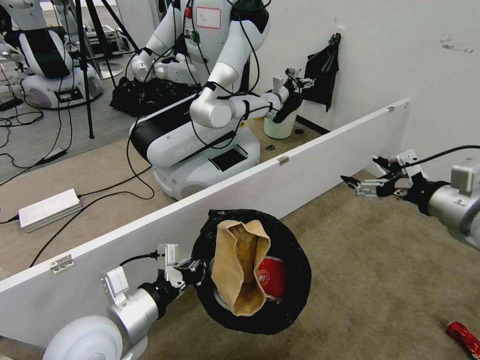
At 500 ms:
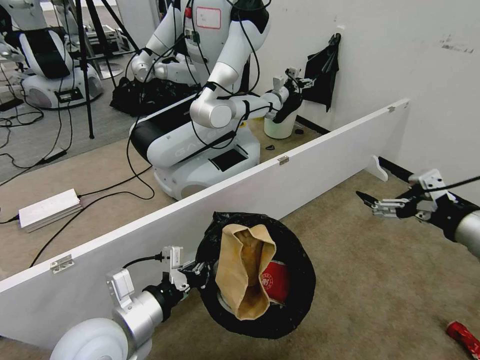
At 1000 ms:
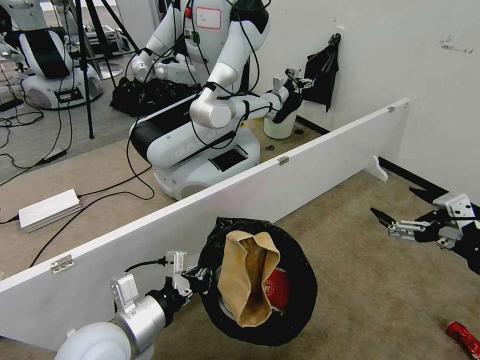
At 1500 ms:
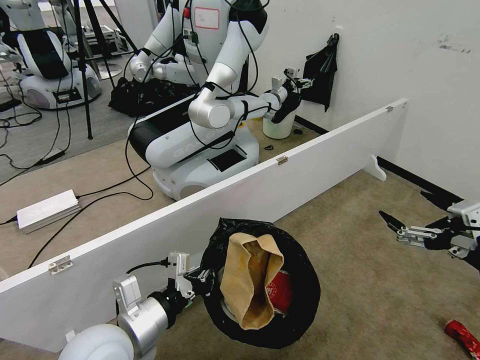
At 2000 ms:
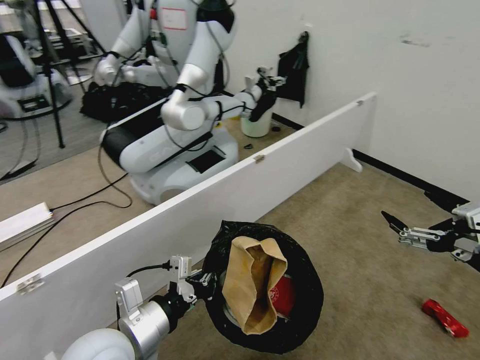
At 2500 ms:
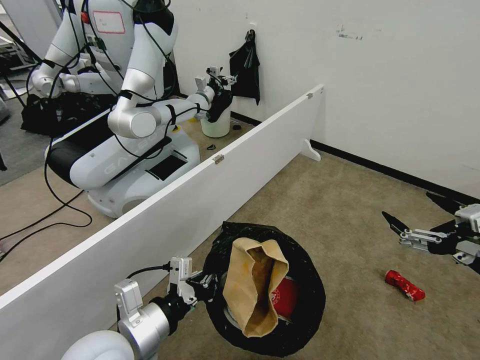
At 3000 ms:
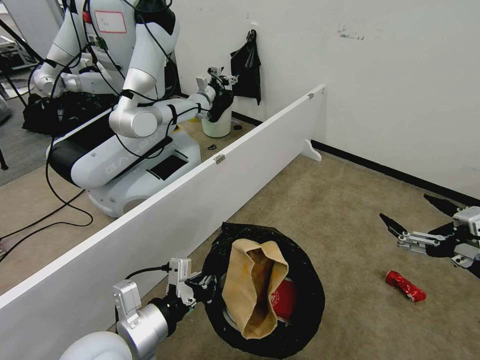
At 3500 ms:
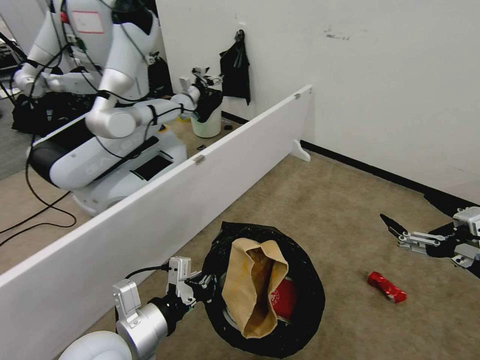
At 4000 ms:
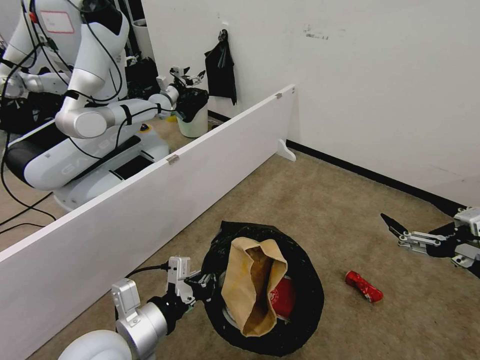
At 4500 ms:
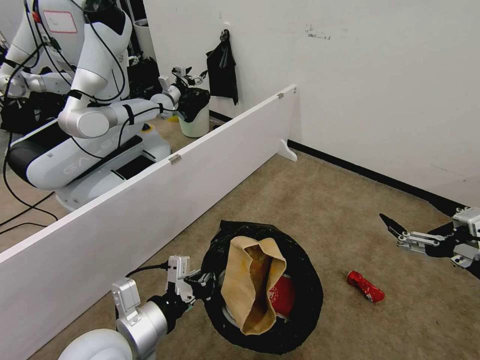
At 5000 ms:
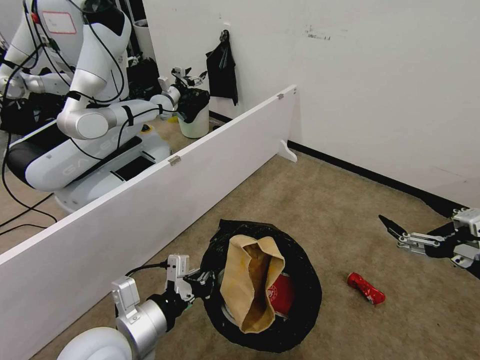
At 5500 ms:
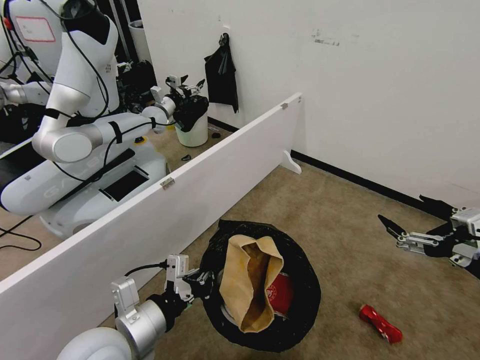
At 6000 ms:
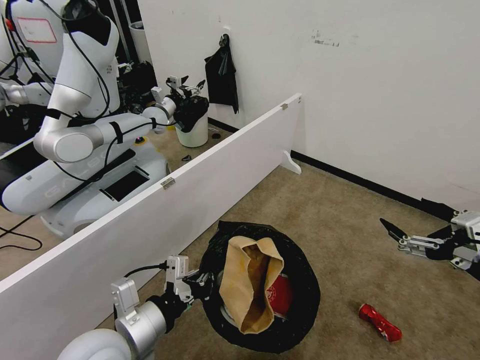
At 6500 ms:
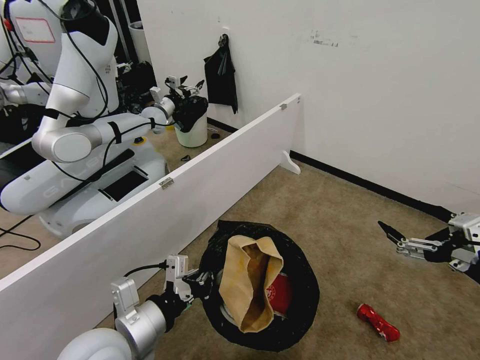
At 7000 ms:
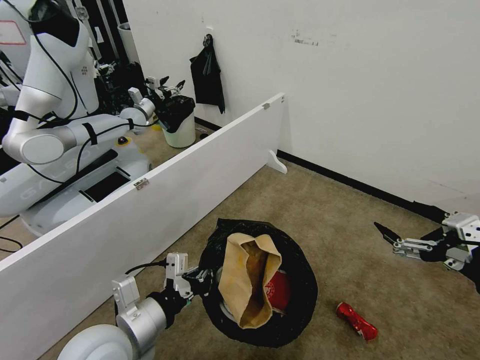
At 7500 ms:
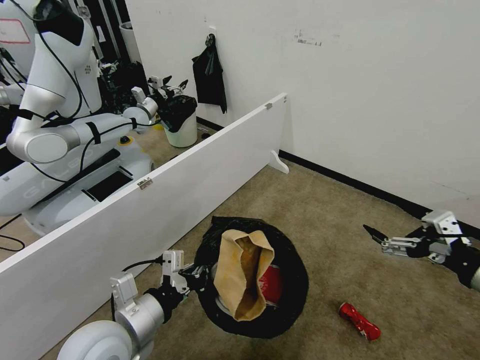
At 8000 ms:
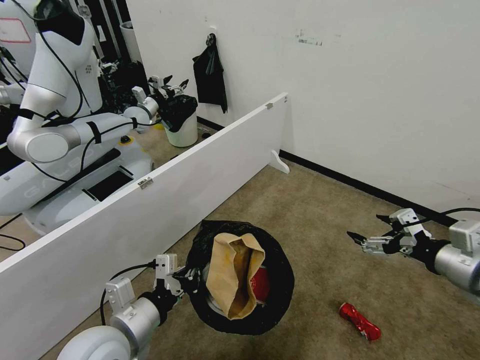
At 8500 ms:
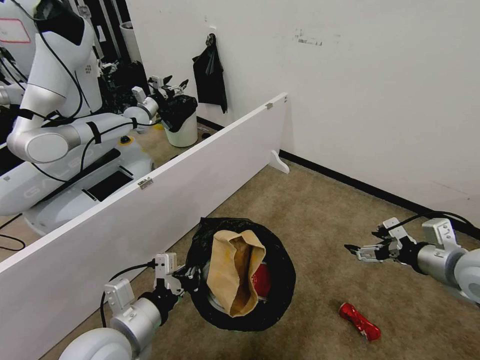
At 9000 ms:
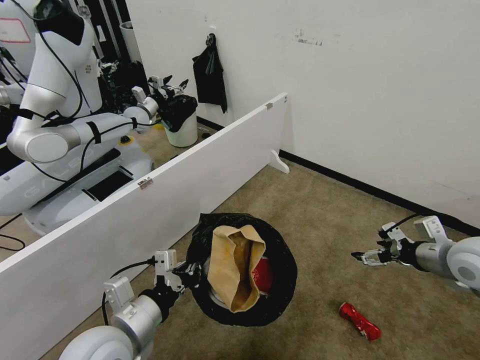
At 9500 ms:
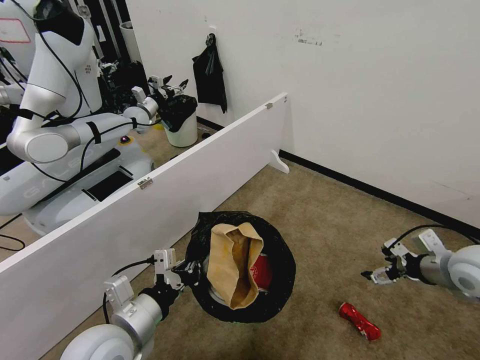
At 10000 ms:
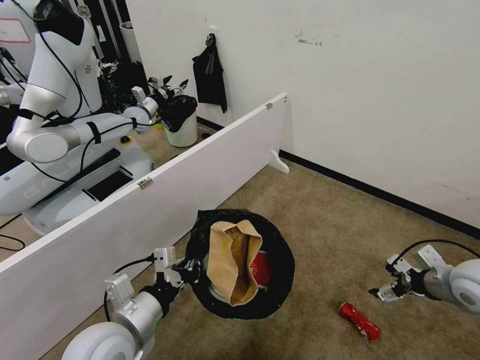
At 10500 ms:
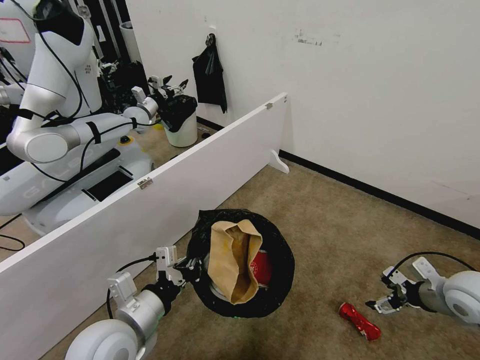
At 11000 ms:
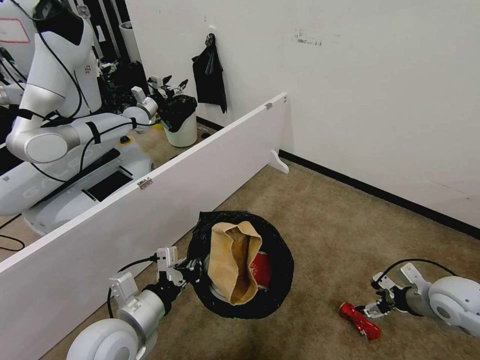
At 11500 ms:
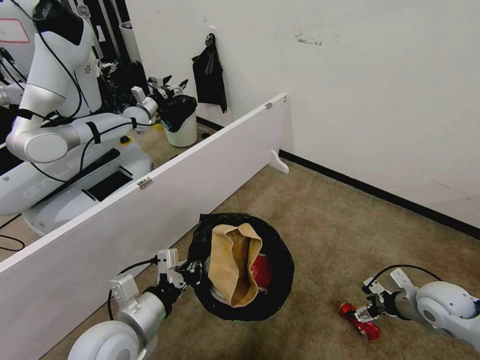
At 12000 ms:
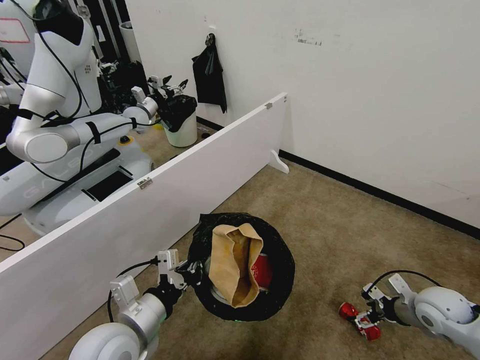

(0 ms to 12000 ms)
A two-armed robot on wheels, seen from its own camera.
Task of the whole recording: Pick up the trash bin, then pick up the garbage from the floor and place it into the trash bin.
0 ms - 2000 ms: The right gripper heads backward, covering some 15 cm.
6000 ms - 8000 ms: The right gripper is displaced forward by about 10 cm.
8000 ms - 10000 ms: The right gripper goes roughly 10 cm downward, to the right and forward.
10000 ms - 12000 ms: The right gripper heads downward, covering approximately 10 cm.

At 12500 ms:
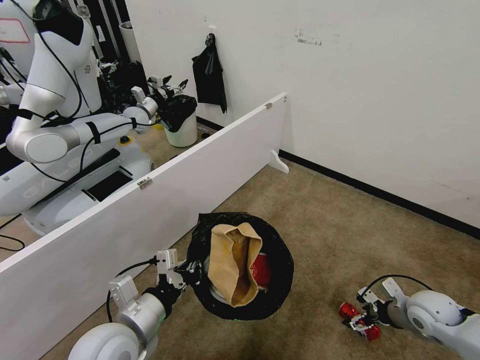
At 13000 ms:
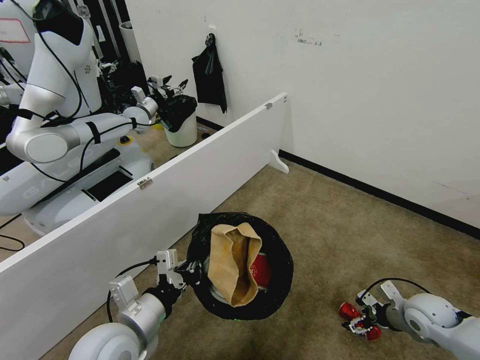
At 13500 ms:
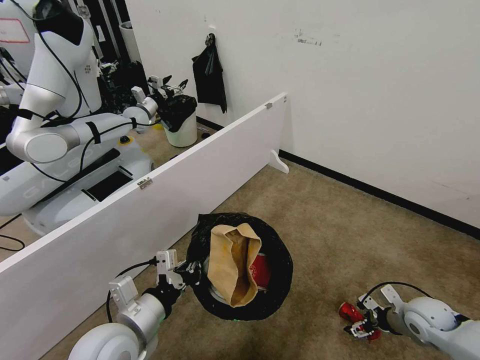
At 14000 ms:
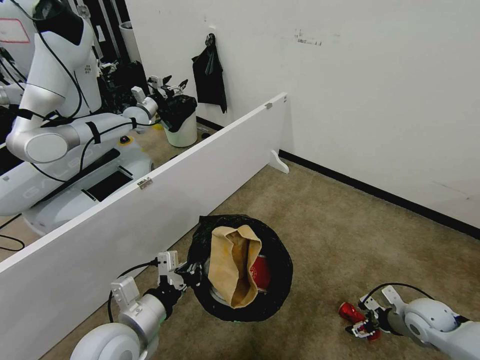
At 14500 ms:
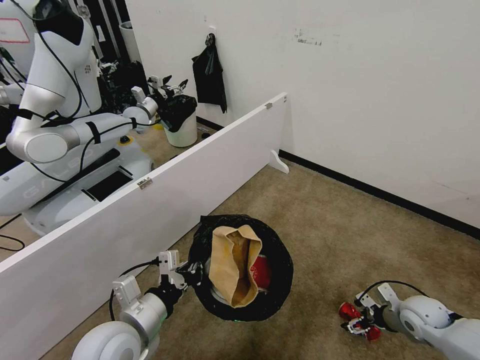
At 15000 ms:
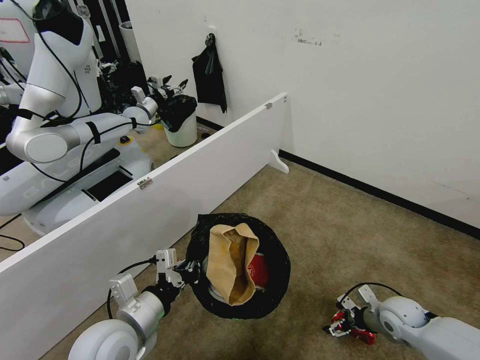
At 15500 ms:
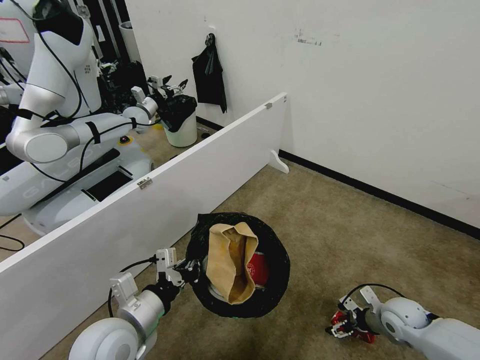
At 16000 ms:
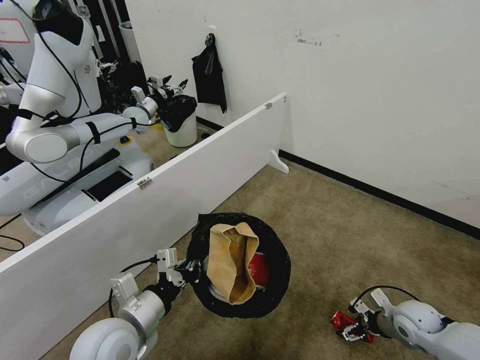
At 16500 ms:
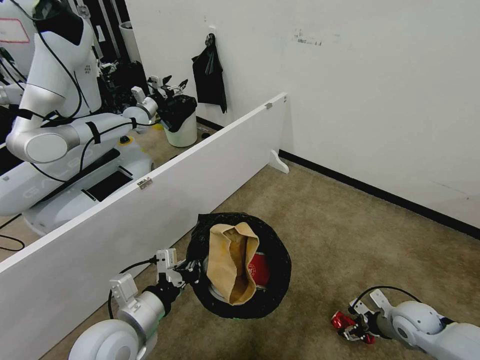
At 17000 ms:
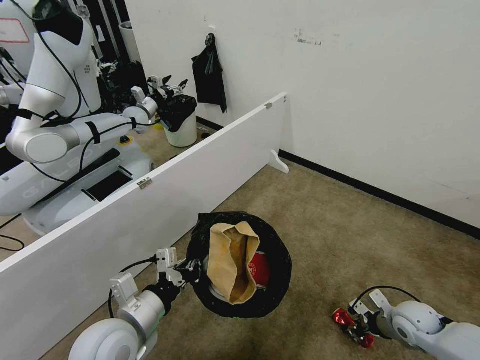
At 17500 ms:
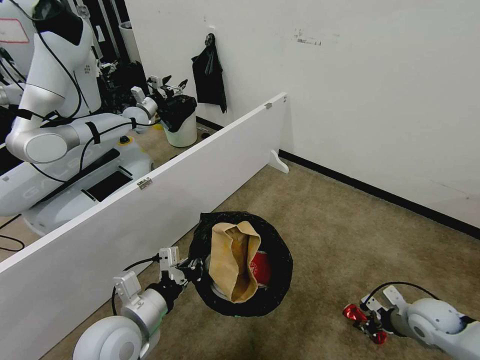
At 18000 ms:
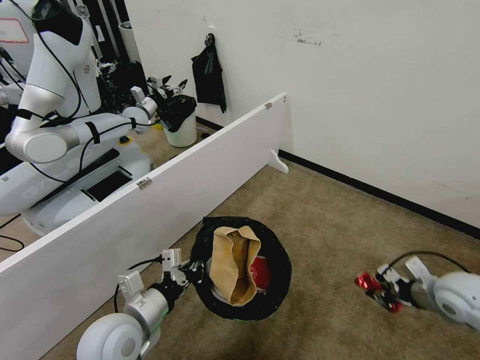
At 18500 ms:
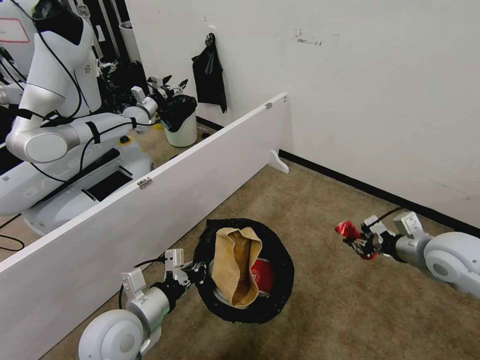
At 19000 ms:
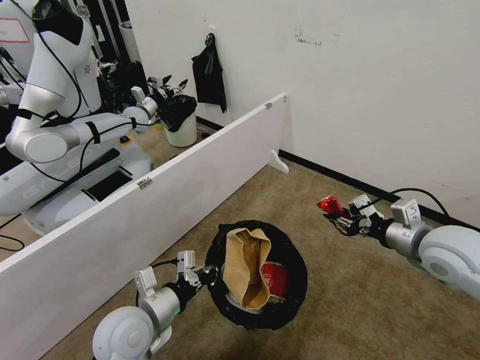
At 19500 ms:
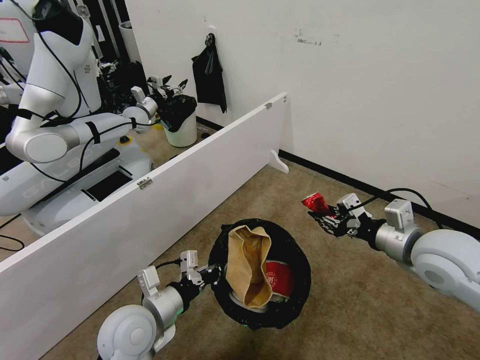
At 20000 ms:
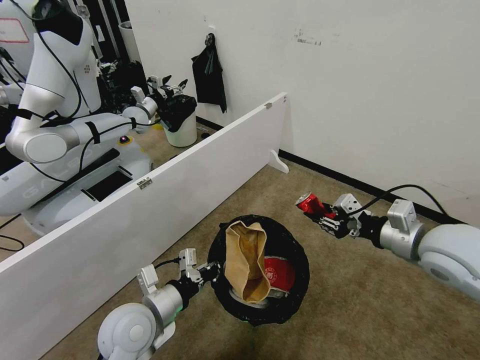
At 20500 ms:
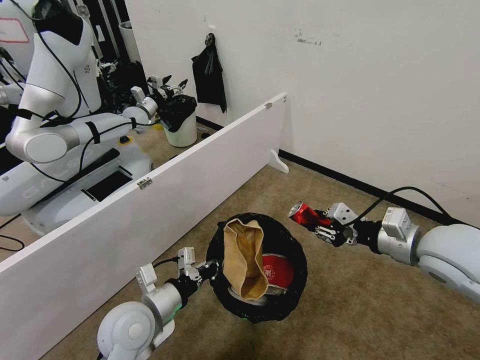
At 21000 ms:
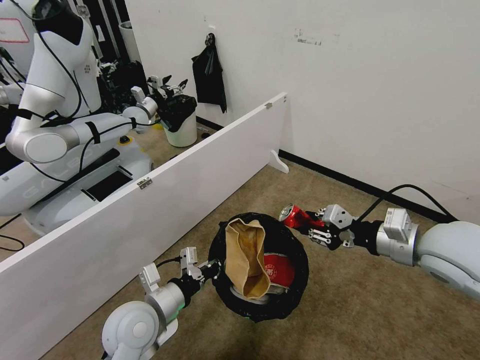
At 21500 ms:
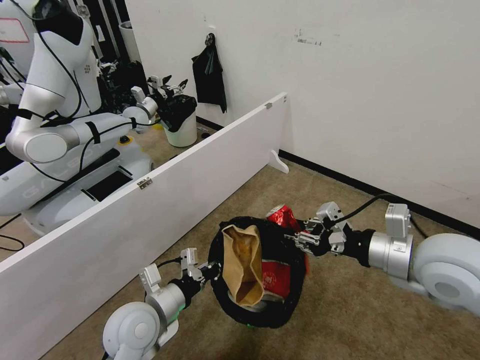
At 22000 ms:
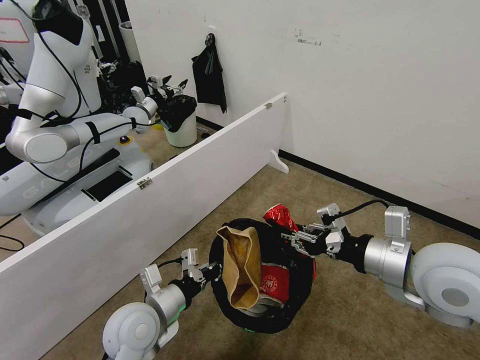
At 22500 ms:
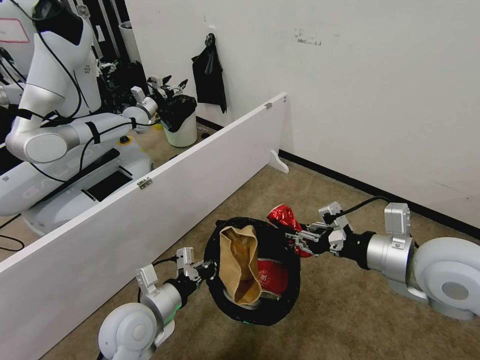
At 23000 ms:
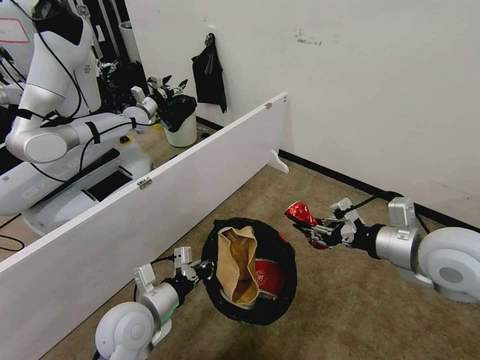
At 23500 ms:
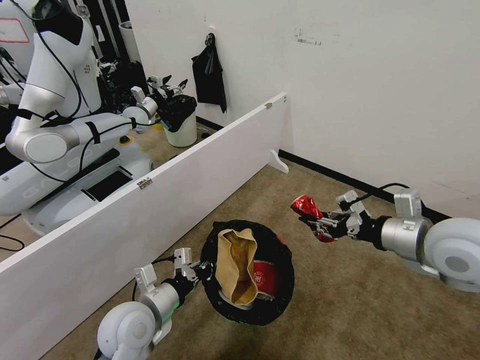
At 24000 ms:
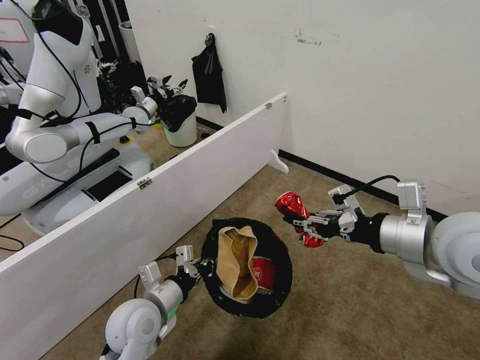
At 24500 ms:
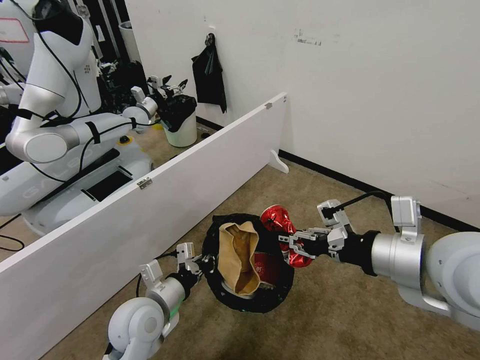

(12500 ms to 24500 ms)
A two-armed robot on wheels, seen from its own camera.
Task of the whole recording: Pick up the trash bin, then pick up the garbage from the floor and place it into the trash bin.
12500 ms - 14500 ms: The grippers move only a little.
14500 ms - 16500 ms: The grippers make only small movements.
16500 ms - 18500 ms: The right gripper goes roughly 20 cm upward, and closes up.
18500 ms - 20500 ms: The right gripper travels to the left and upward by roughly 10 cm.
20500 ms - 22500 ms: The right gripper shifts by some 5 cm.
22500 ms - 24500 ms: The right gripper moves upward, roughly 5 cm.

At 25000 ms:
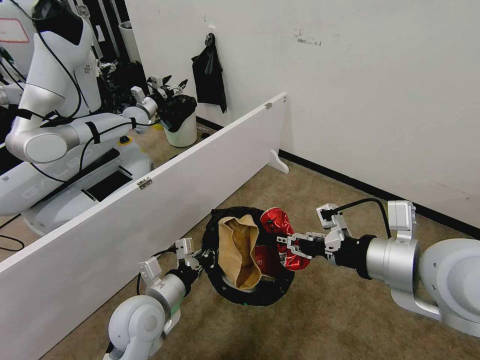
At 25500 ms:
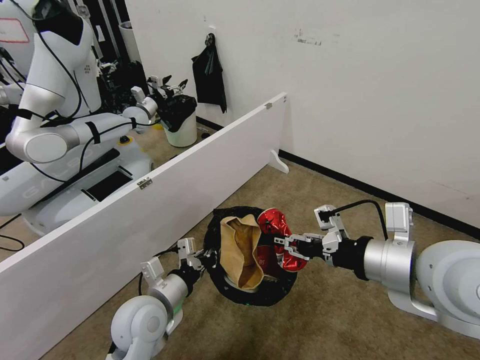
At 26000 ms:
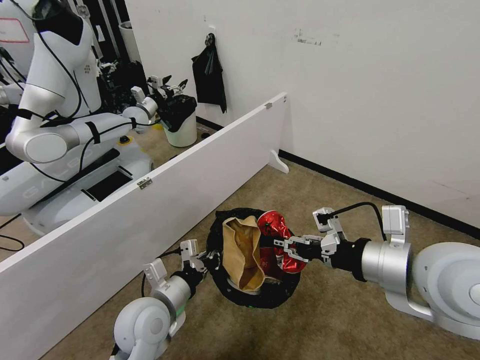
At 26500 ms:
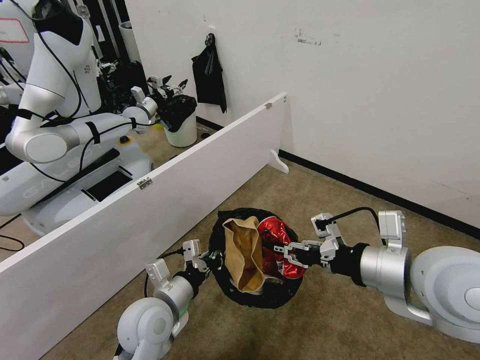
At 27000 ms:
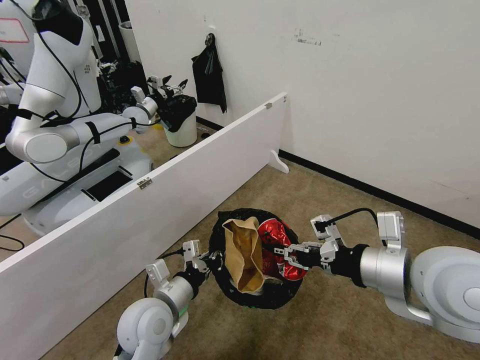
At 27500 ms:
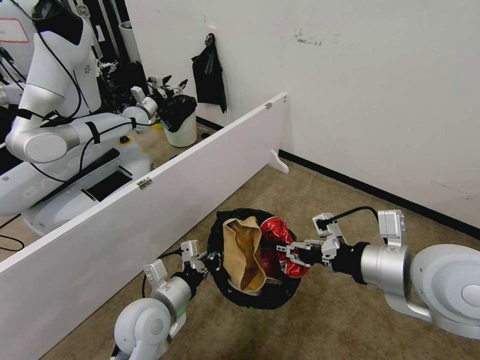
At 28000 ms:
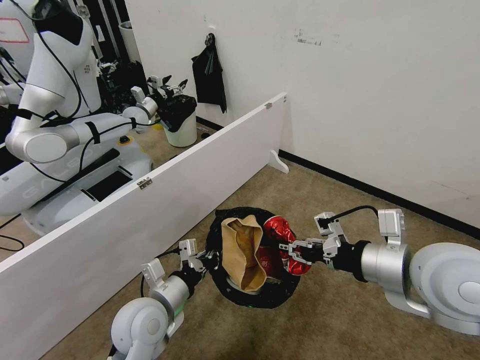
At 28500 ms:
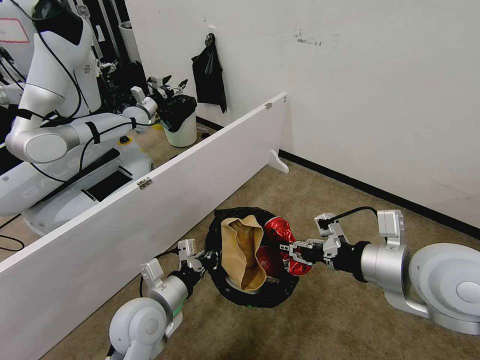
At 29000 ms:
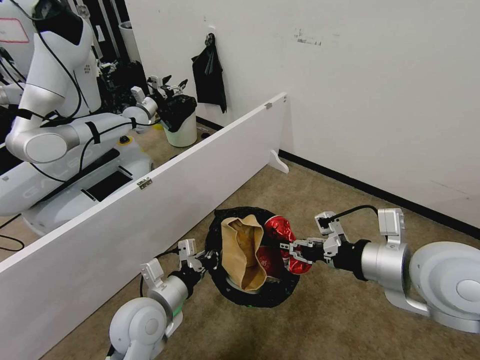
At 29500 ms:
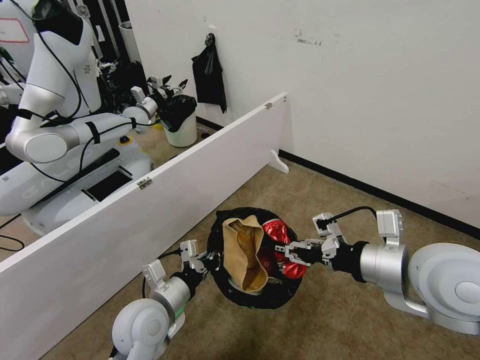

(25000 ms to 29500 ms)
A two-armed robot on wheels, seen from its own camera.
Task of the whole recording: Pick up the trash bin, then pick up the garbage from the floor and place it into the trash bin.
25000 ms - 29500 ms: The grippers move only a little.
